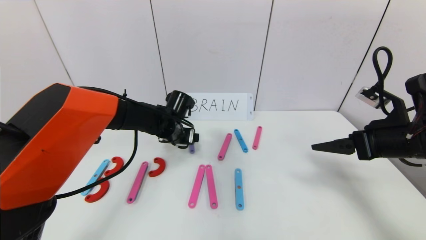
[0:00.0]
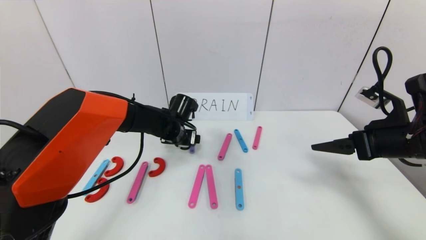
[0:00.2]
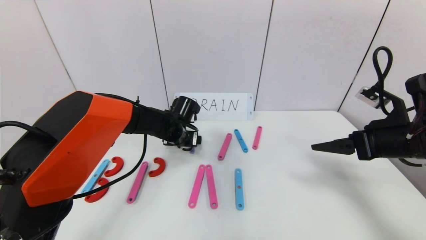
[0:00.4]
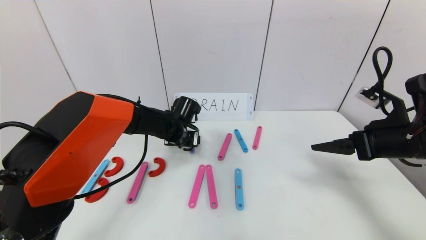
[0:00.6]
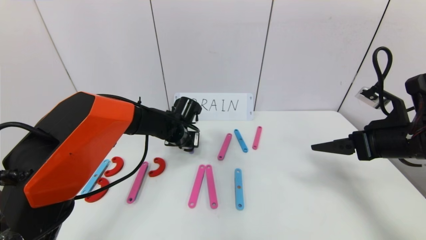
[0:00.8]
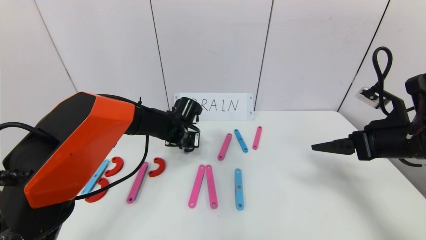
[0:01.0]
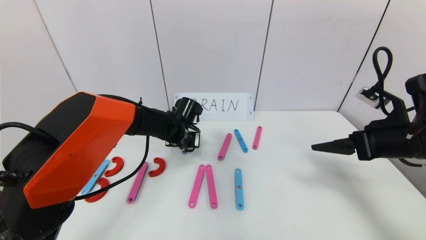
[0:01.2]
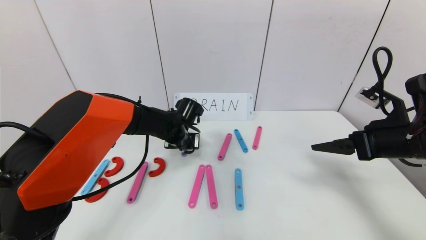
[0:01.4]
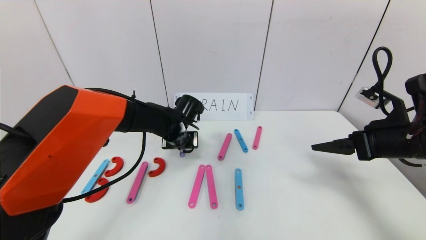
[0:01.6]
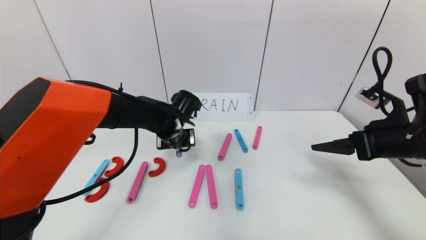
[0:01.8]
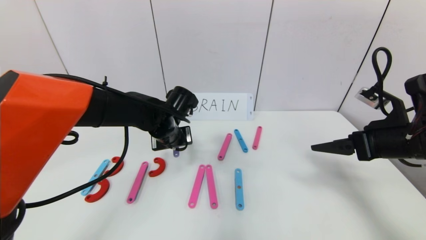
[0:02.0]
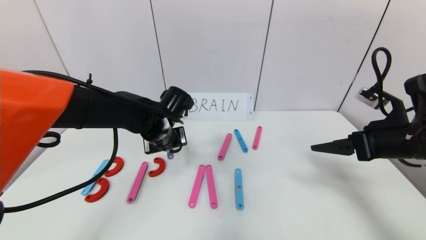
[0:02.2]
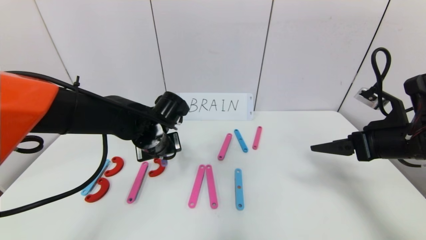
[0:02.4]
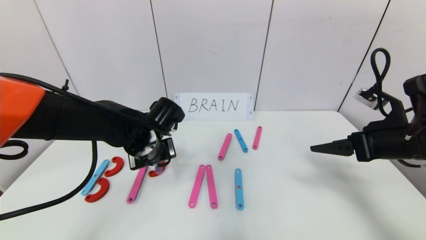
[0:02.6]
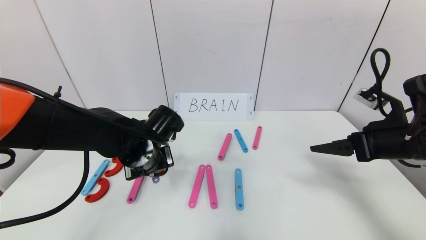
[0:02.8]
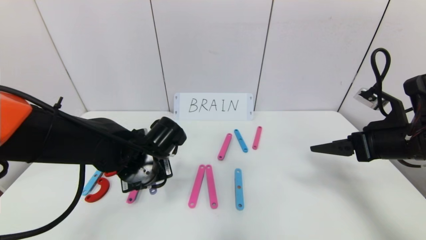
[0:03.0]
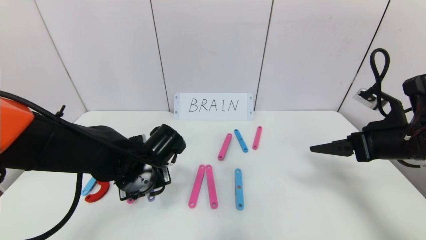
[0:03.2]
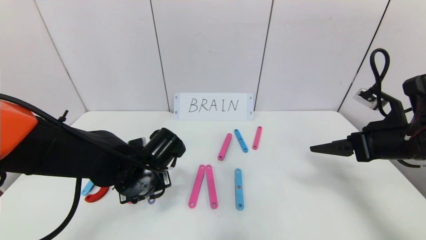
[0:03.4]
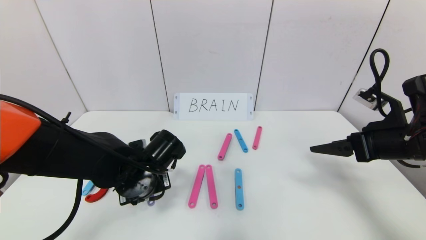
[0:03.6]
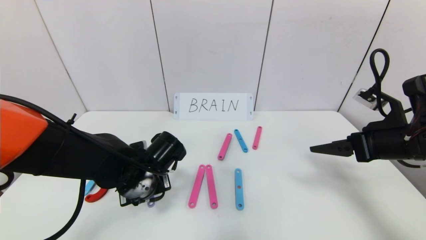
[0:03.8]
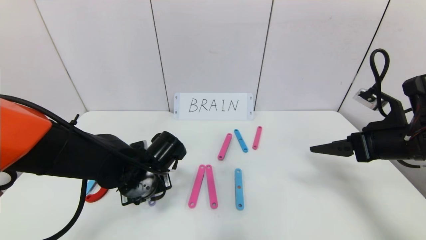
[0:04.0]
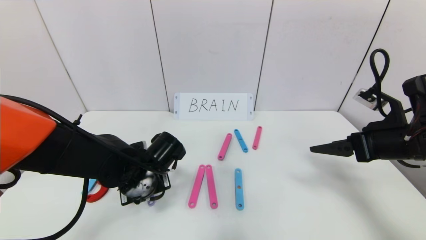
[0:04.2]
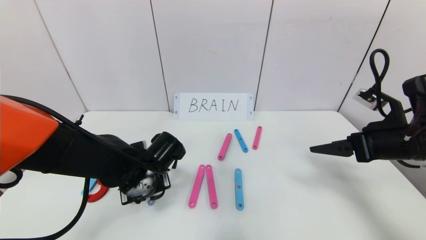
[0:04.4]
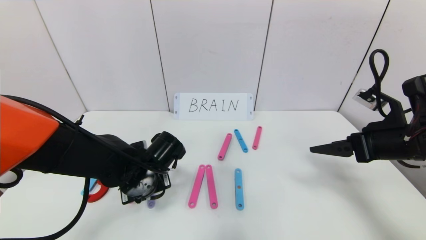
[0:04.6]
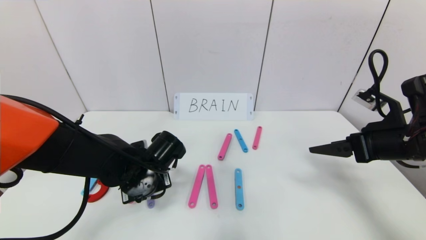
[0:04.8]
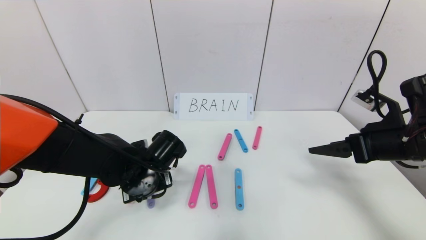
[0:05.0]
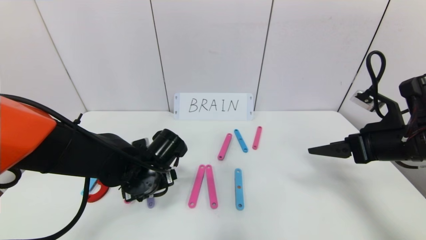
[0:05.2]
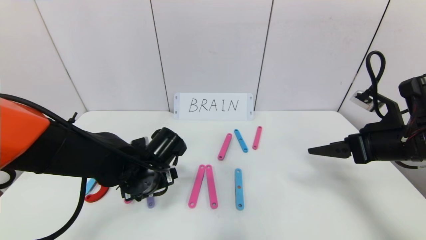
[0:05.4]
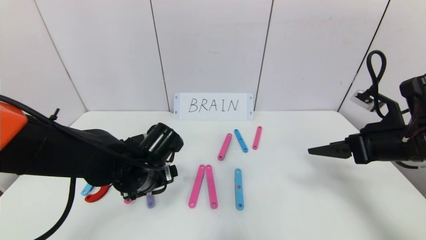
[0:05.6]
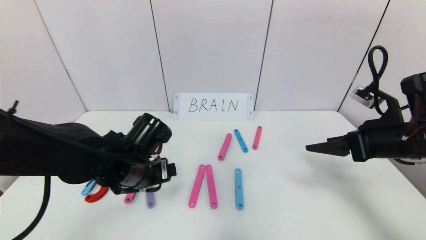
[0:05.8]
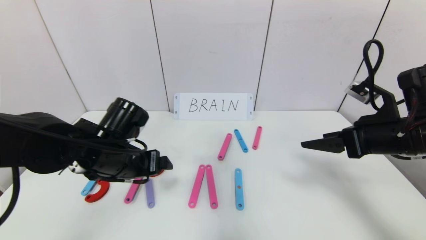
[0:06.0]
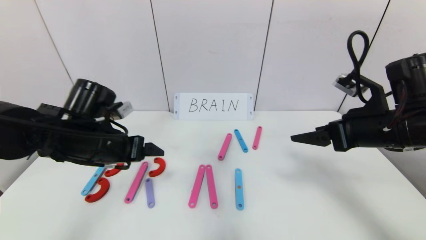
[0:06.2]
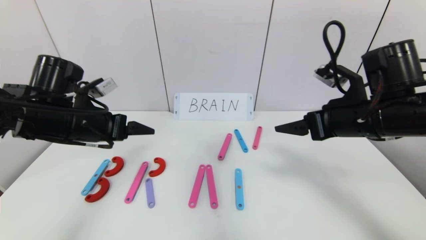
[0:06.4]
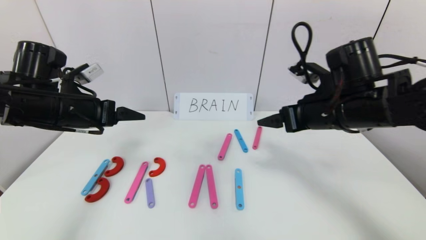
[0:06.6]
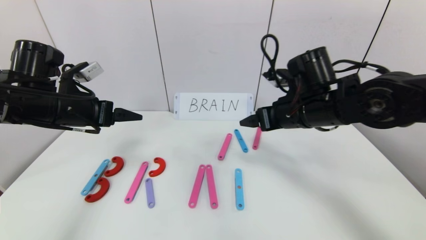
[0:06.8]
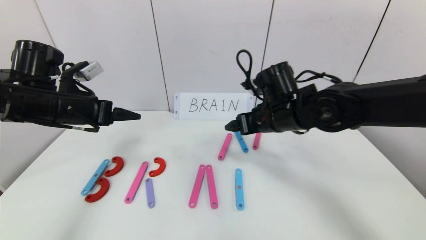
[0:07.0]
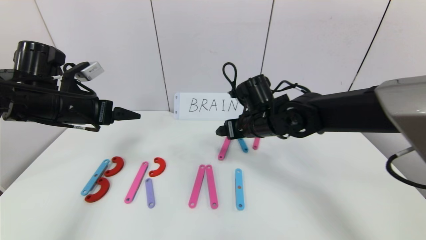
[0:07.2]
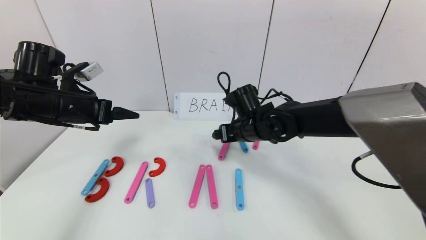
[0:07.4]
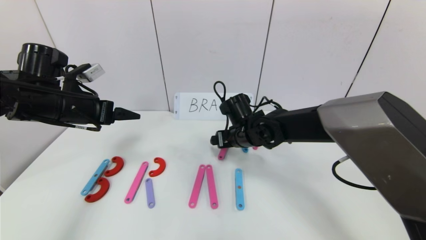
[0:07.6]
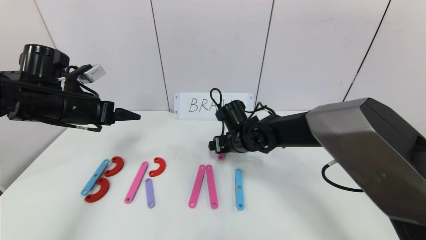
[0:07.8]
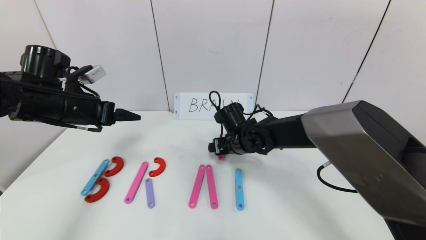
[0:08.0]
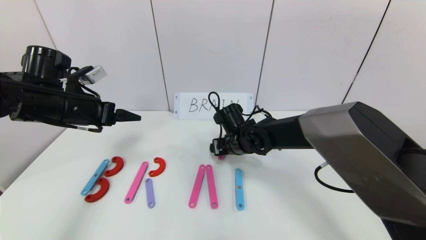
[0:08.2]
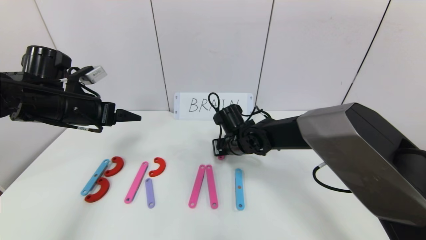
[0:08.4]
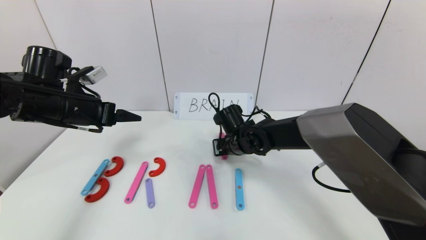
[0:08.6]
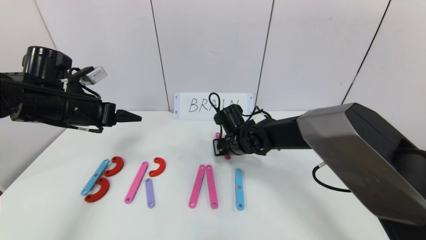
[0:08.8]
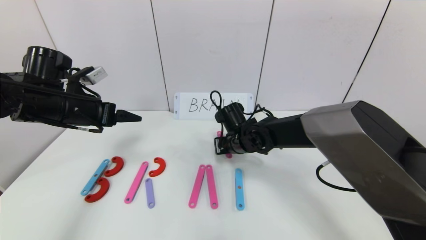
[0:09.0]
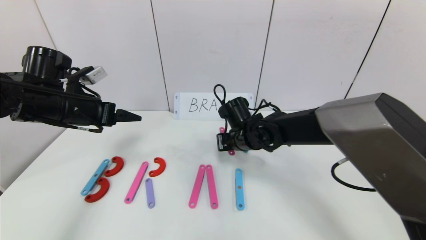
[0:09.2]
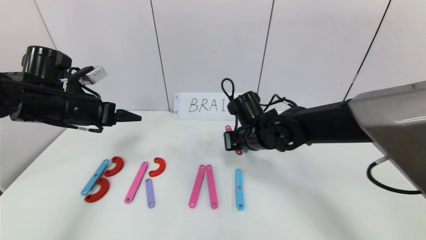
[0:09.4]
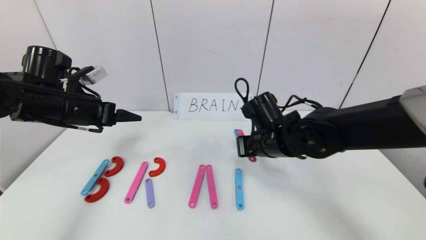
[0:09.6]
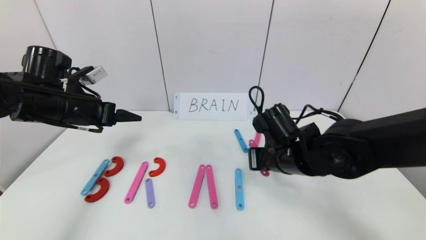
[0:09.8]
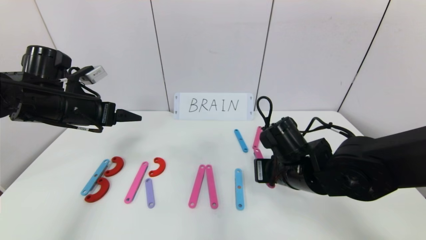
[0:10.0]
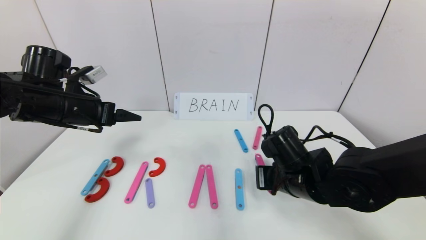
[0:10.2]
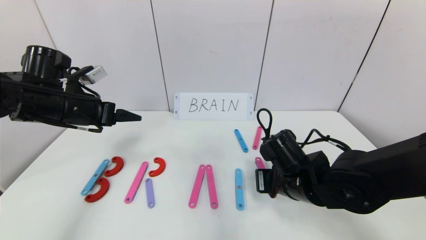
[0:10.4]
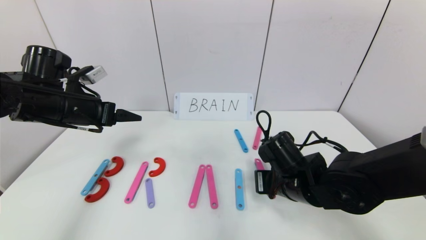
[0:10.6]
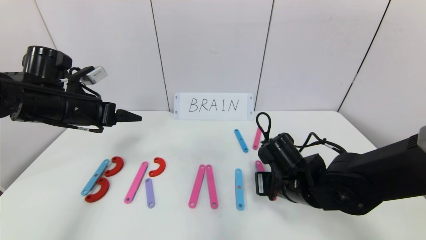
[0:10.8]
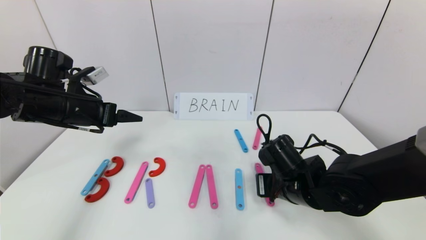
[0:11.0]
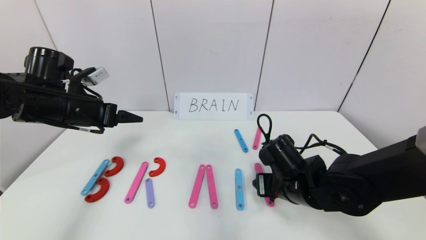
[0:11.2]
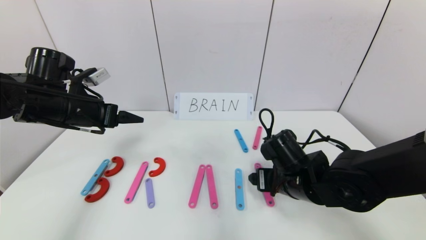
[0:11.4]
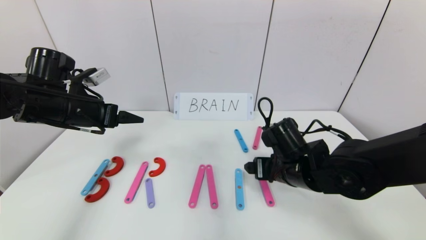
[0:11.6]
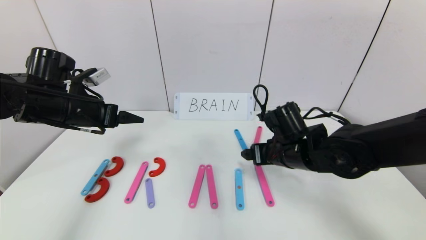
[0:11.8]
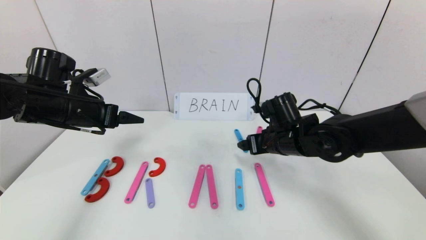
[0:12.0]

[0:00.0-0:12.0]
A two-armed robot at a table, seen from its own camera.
Task of the whole recording: rearrange the word baai as brain.
Step, 0:00.0 to 0:05.0: Place the character R between first character B and third character A.
0:00.0 to 0:01.6: The left gripper closes up.
0:01.6 to 0:03.0: The left gripper heads backward, covering approximately 10 cm.
0:03.0 to 0:04.4: There are only small adjustments of the grippers.
0:04.4 to 0:06.0: The left gripper is displaced upward by about 5 cm, and opens up.
0:06.0 to 0:07.6: The right gripper travels to the left, forward and downward by roughly 30 cm. The left gripper shifts approximately 15 cm to the left, upward and forward.
0:07.6 to 0:09.0: The right gripper closes its fingers.
0:09.0 to 0:10.4: The right gripper goes approximately 15 cm backward and to the right.
0:10.4 to 0:12.0: The right gripper is displaced forward by about 10 cm, and opens.

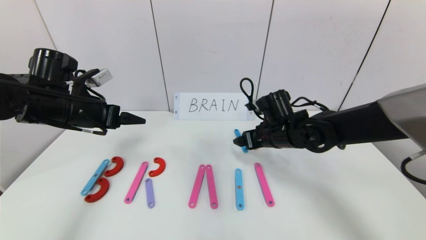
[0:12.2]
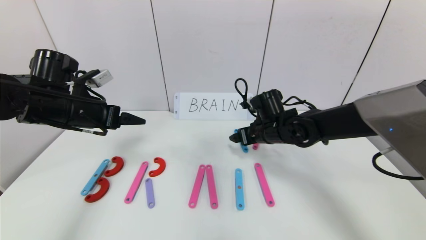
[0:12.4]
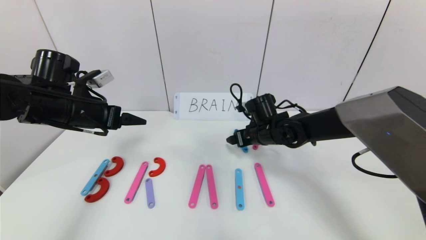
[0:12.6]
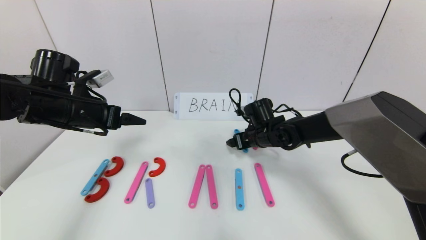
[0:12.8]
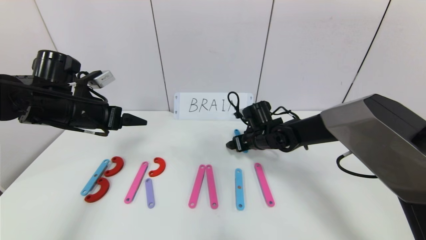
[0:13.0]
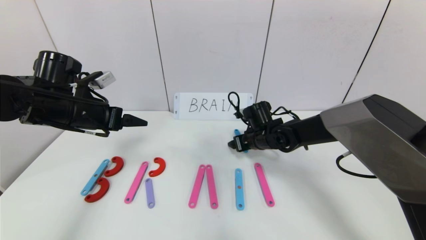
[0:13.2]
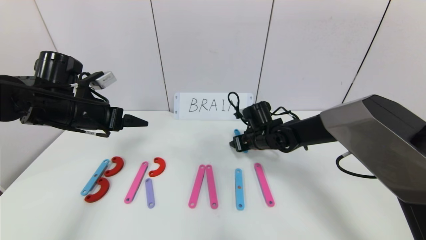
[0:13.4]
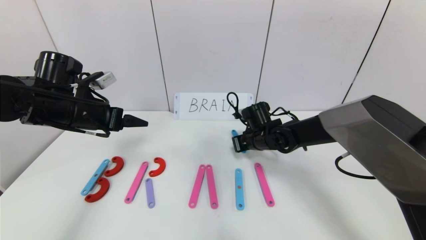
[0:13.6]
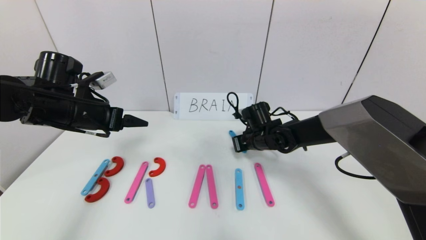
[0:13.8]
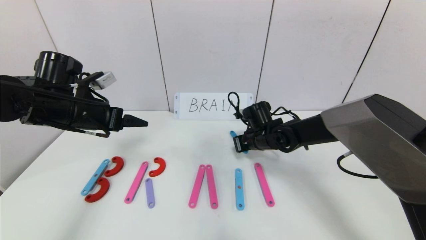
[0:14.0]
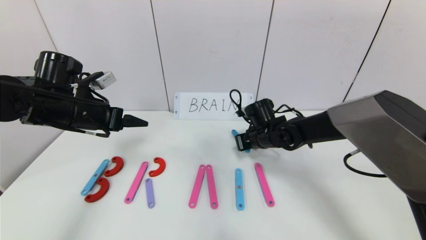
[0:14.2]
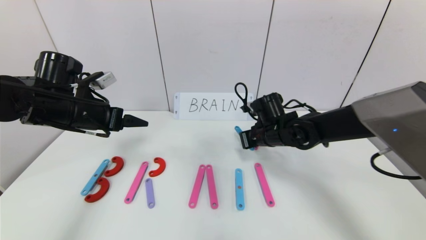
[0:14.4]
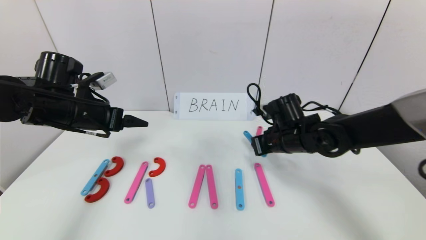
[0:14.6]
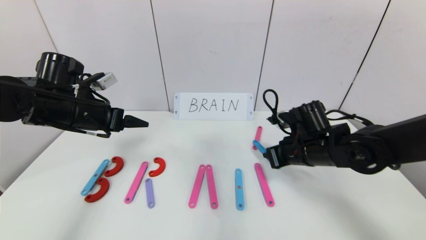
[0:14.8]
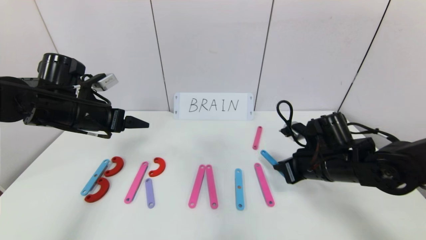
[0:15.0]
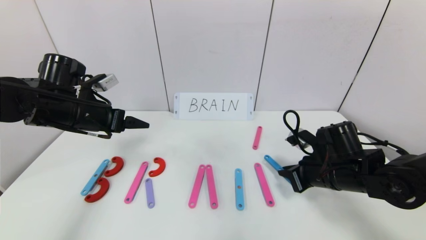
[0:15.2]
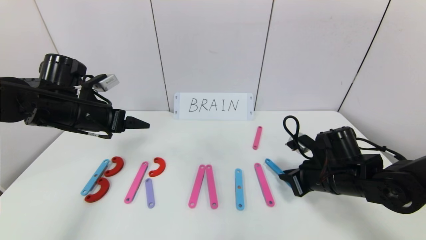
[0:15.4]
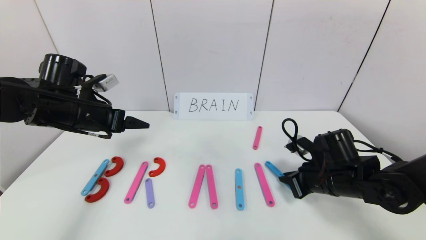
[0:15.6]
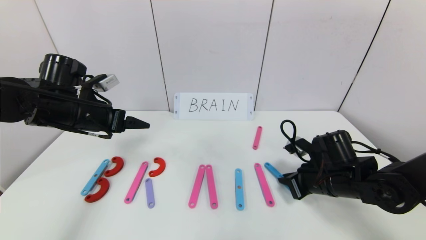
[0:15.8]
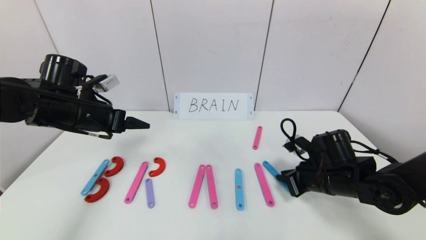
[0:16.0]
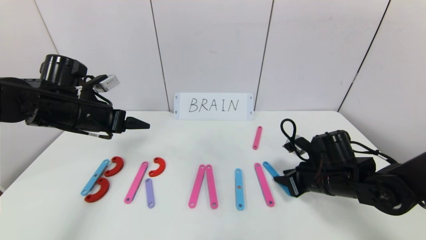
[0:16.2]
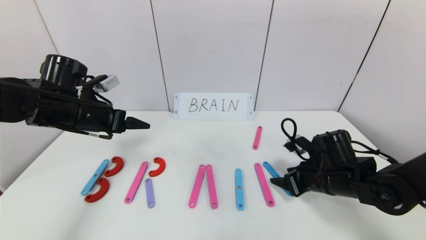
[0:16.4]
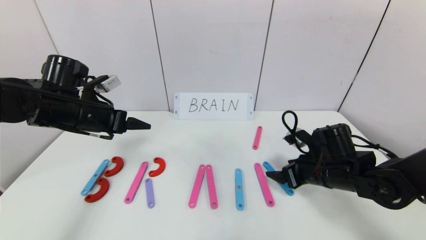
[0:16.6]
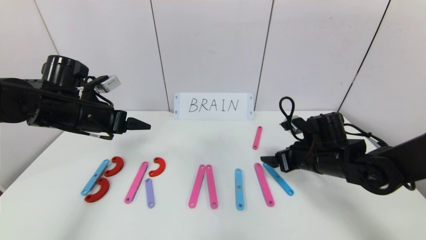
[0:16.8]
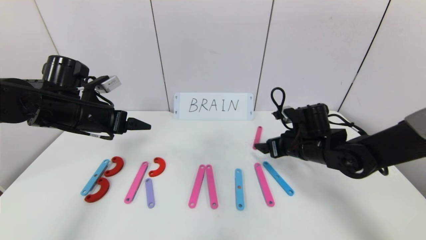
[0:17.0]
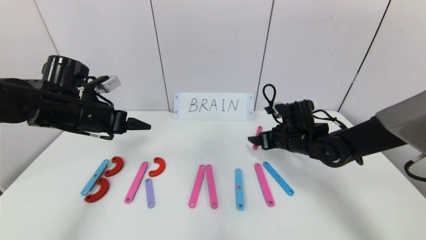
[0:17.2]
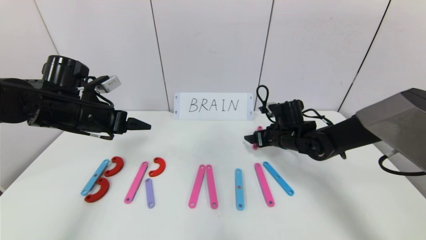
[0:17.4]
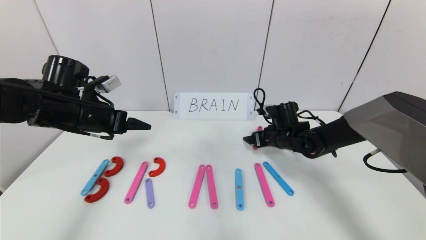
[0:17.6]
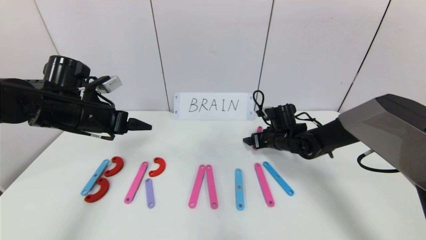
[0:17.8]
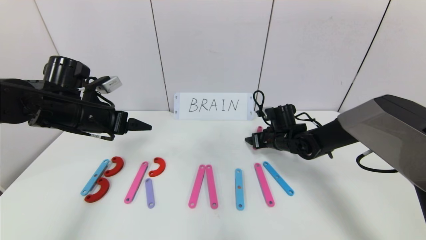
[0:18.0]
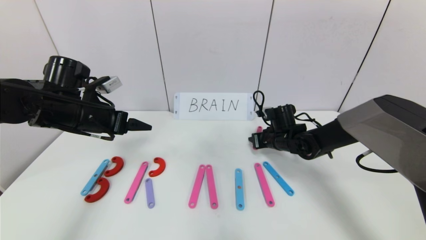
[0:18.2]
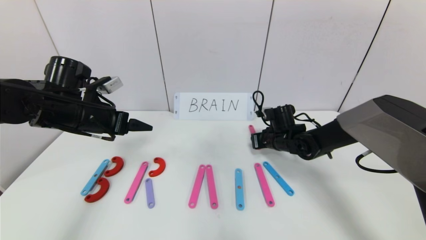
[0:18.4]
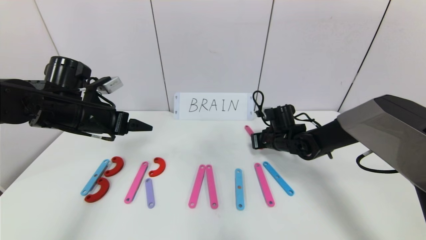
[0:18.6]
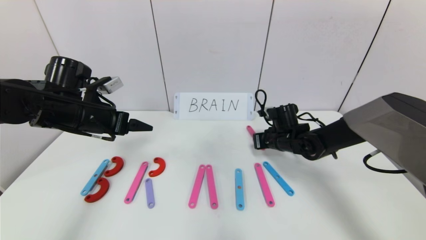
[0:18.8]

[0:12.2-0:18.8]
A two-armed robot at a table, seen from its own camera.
Task of the whole recording: rearrange the word baai as brain.
0:12.2 to 0:13.8: The right gripper moves downward and forward, approximately 10 cm, and closes.
0:13.8 to 0:15.4: The right gripper travels backward and to the right by some 20 cm.
0:15.4 to 0:17.2: The right gripper travels forward by some 10 cm, and opens up.
0:17.2 to 0:18.8: The right gripper closes.
